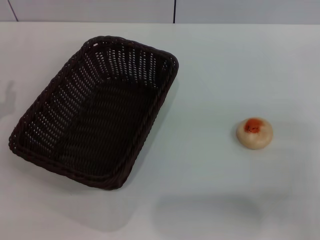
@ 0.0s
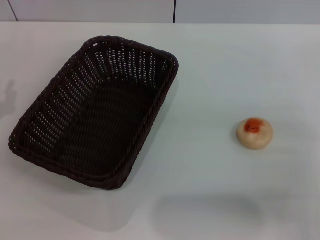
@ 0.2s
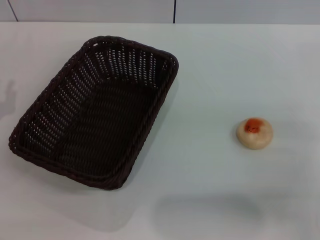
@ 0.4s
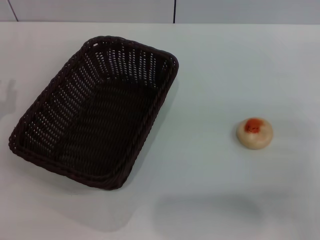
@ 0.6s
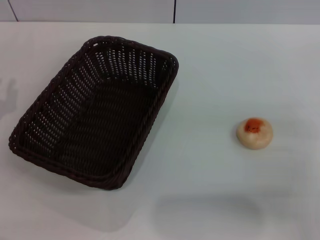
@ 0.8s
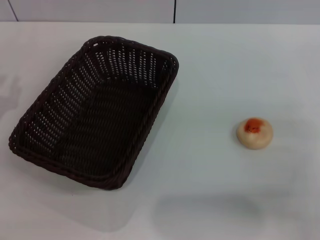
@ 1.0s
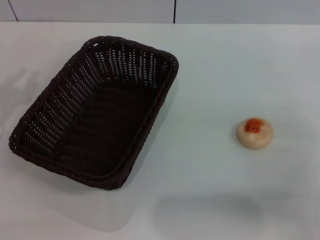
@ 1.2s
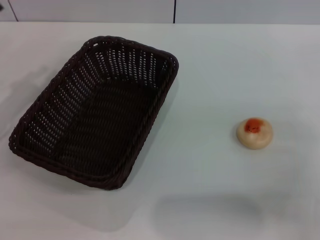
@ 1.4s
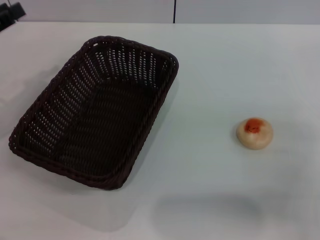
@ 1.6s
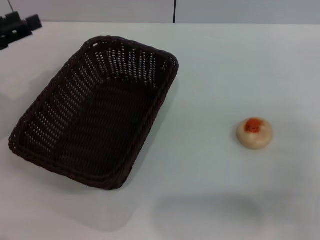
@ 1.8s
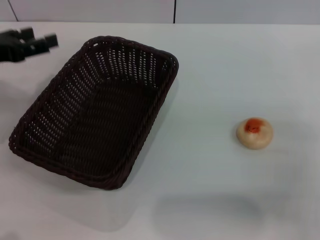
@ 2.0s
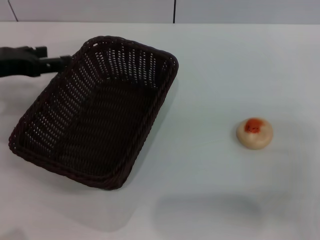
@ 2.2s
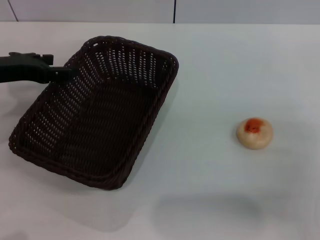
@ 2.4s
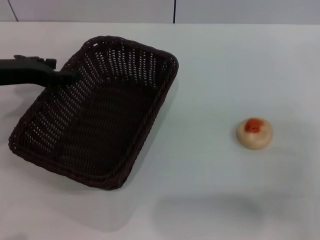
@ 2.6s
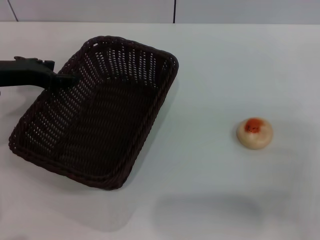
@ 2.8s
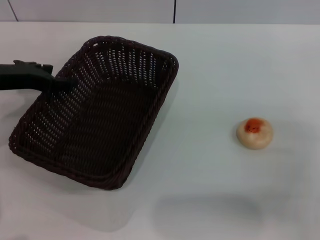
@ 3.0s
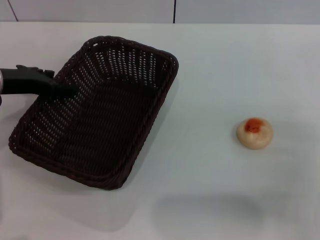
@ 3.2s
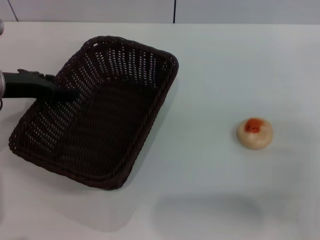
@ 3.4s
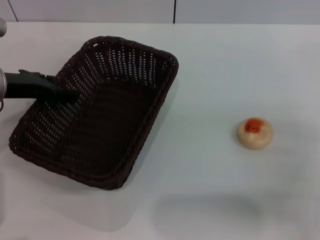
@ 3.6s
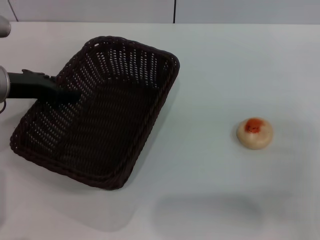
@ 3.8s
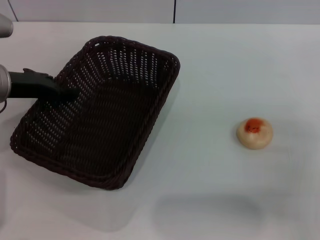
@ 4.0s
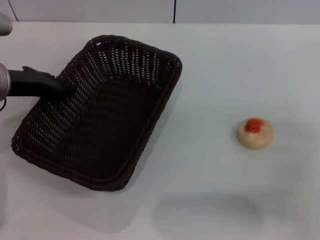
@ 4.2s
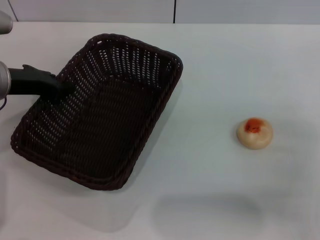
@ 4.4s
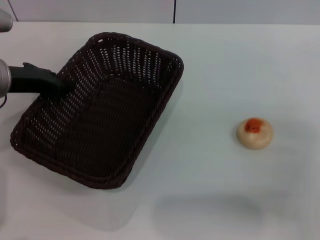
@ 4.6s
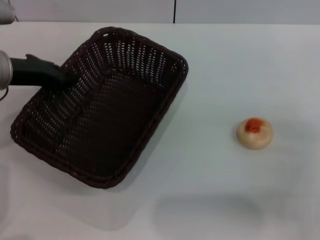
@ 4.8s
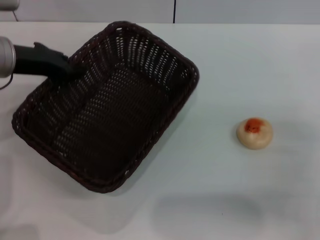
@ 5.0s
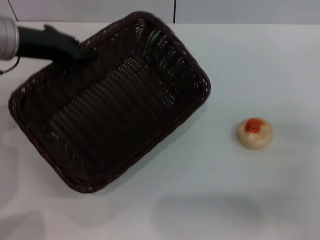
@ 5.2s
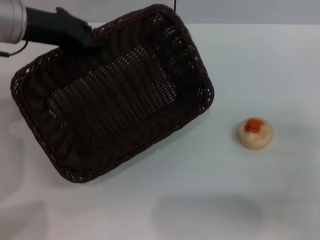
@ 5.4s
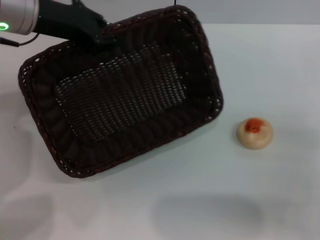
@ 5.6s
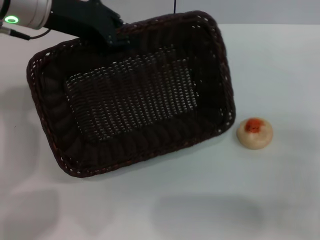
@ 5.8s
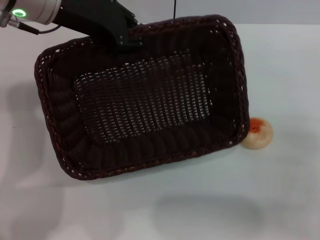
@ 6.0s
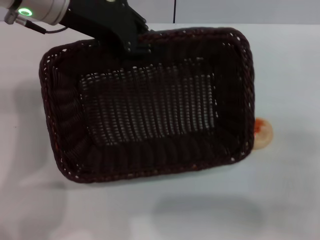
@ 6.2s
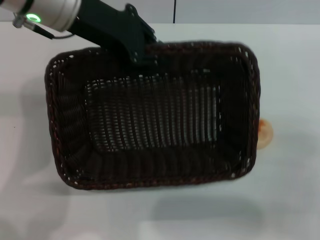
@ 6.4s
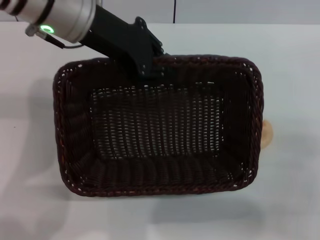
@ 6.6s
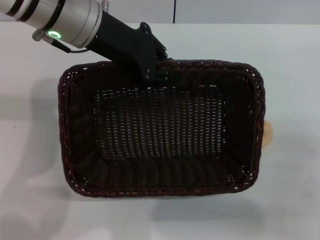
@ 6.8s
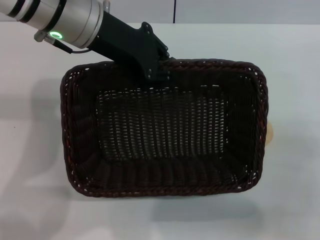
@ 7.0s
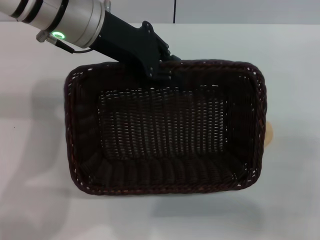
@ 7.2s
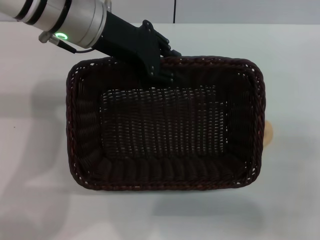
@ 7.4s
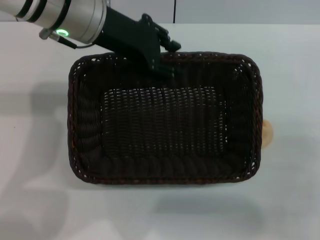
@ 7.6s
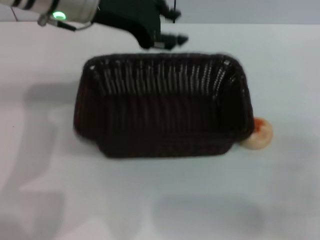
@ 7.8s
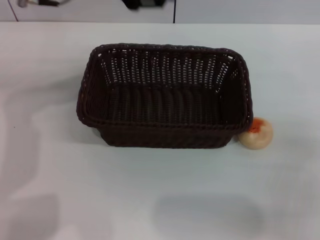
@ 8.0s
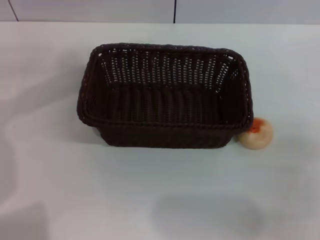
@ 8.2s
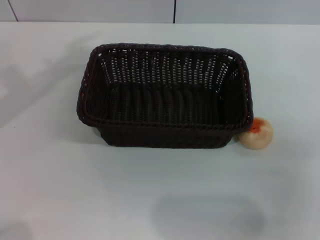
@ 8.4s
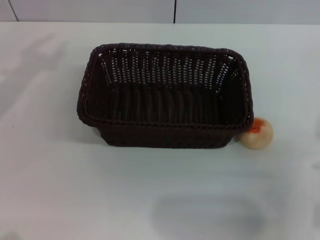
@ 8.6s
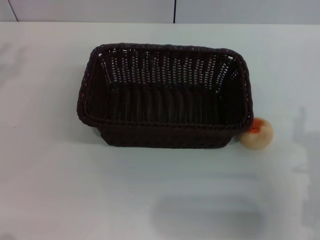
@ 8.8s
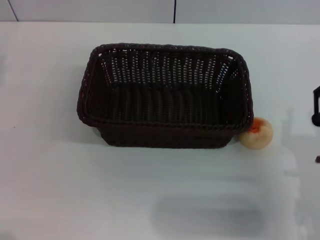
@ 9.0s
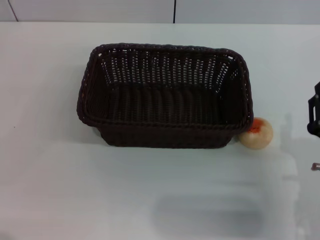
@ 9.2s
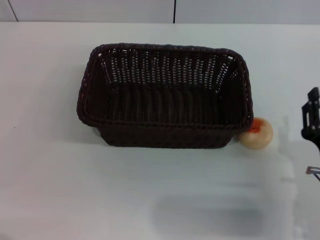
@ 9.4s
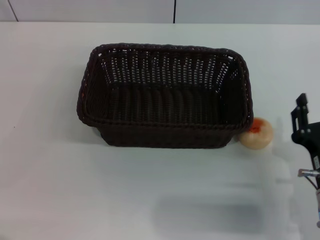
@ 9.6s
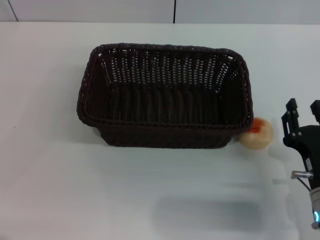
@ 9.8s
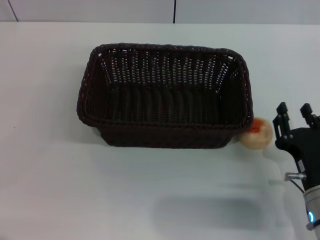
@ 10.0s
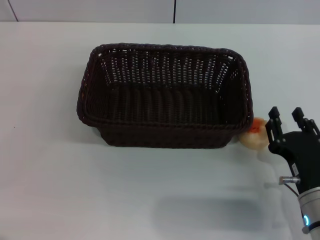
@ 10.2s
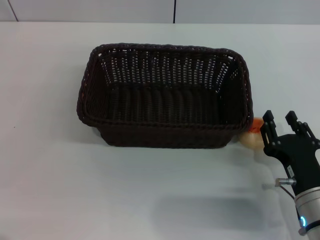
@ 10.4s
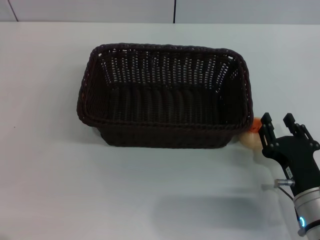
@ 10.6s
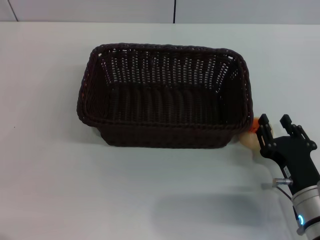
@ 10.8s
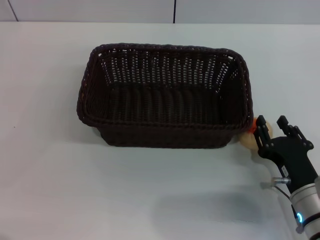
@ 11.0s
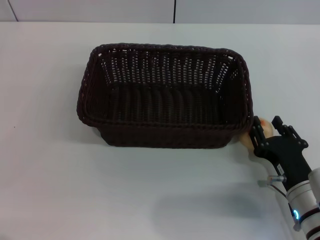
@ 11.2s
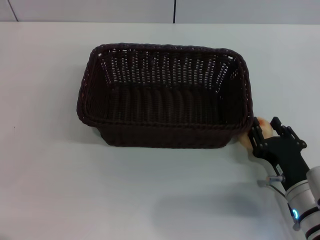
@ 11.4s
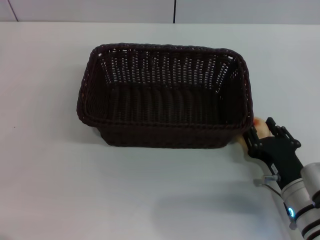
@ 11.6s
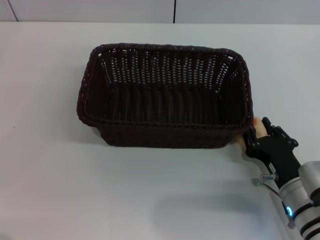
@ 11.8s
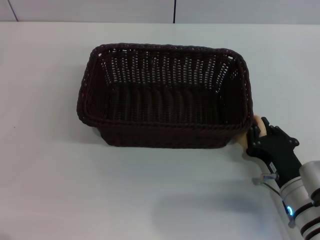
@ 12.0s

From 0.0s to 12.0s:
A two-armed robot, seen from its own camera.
Step, from 0.0s to 7.8s: Move the basket to the center of view with the left gripper.
From 0.0s to 1.6s: The left gripper shifts approximately 10 cm upward and forward.
From 1.6s to 3.0s: The left gripper moves to the right, approximately 5 cm, and opens its fingers.
From 3.0s to 4.4s: The left gripper closes up.
From 4.4s to 6.0s: The left gripper travels upward and to the right by roughly 15 cm.
From 7.6s to 9.0s: The left gripper goes about 25 cm to the left. The right gripper goes about 5 cm to the left.
From 10.4s to 12.0s: The right gripper closes.

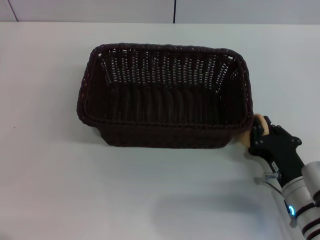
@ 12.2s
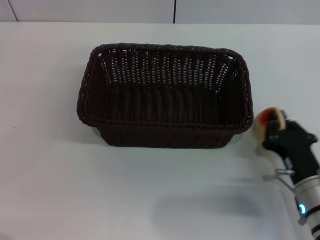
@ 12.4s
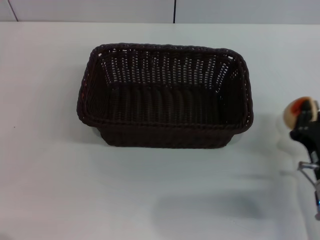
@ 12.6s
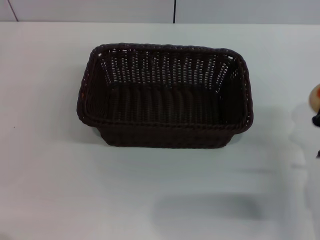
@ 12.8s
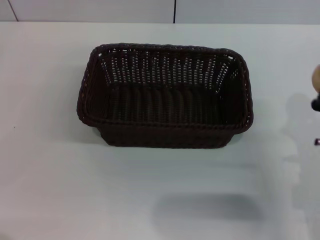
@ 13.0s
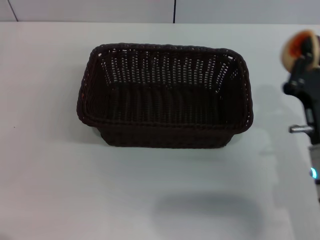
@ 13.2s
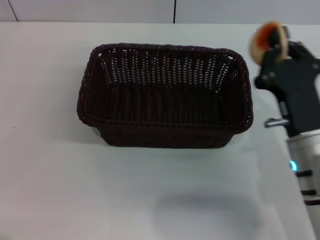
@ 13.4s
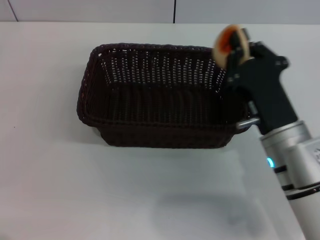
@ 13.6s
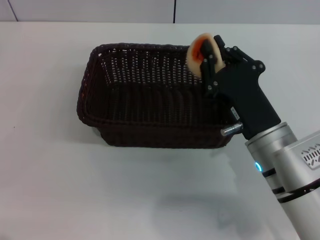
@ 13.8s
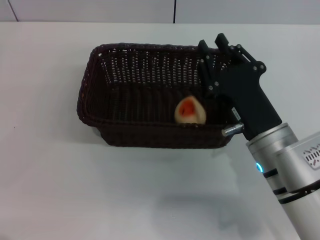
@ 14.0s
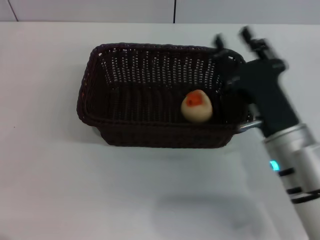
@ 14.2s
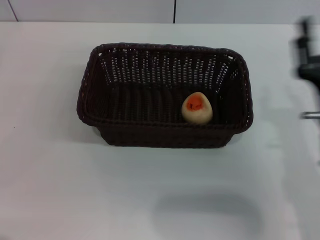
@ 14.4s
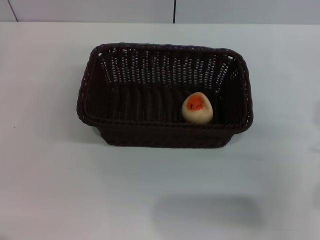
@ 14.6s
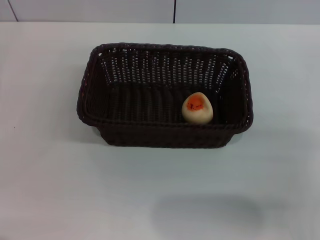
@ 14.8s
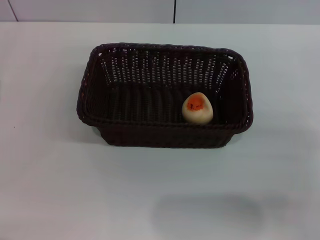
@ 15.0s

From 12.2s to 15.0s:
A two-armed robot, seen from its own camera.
Step, from 12.8s to 13.8s: Place the egg yolk pastry into the basket with the right gripper.
From 12.2s to 13.6s: The right gripper shifts approximately 10 cm upward.
From 13.6s to 15.0s: The right gripper goes some 15 cm to the right, and opens.
